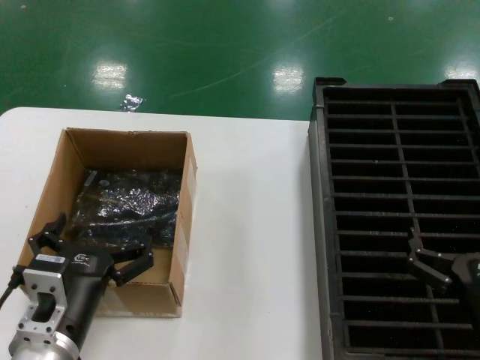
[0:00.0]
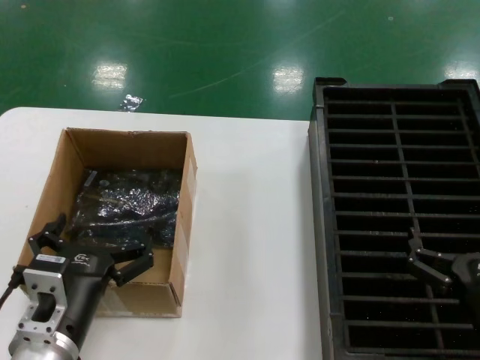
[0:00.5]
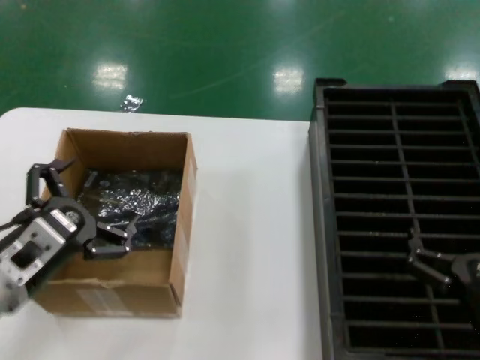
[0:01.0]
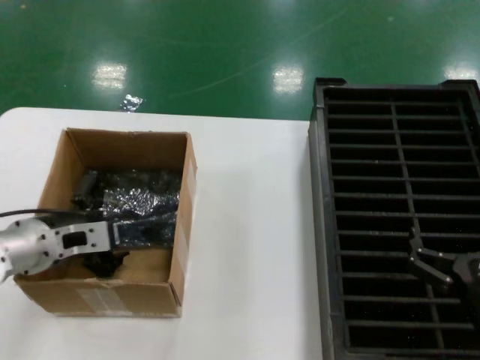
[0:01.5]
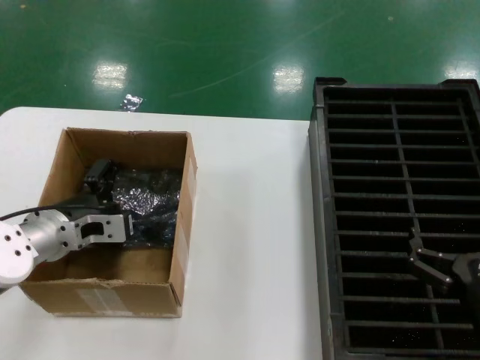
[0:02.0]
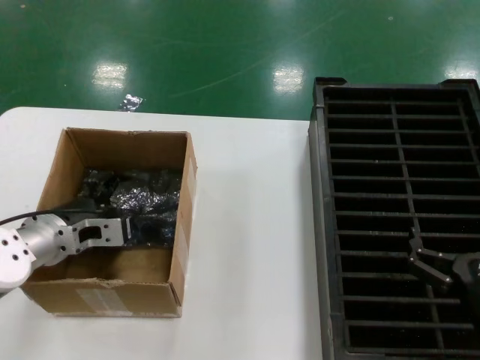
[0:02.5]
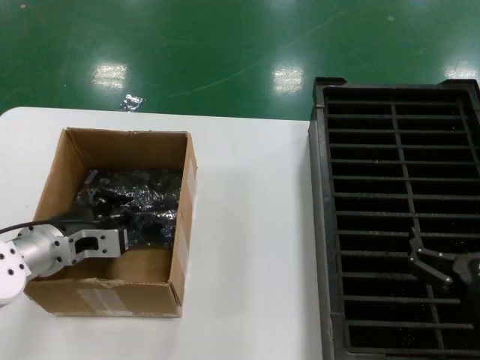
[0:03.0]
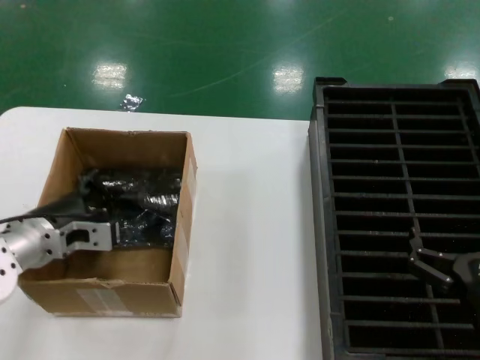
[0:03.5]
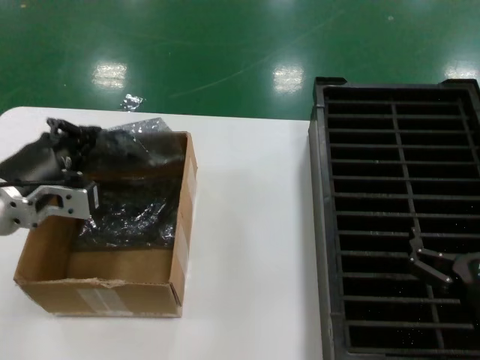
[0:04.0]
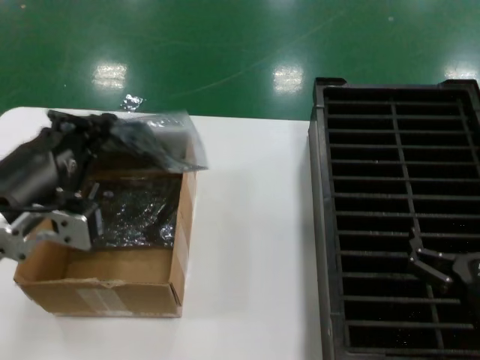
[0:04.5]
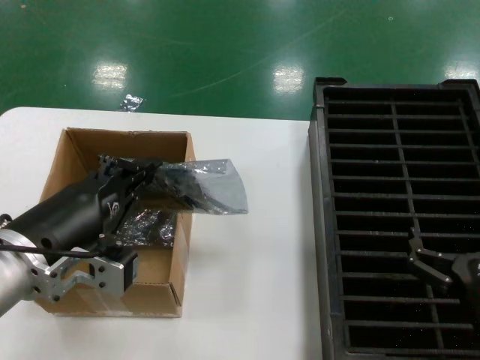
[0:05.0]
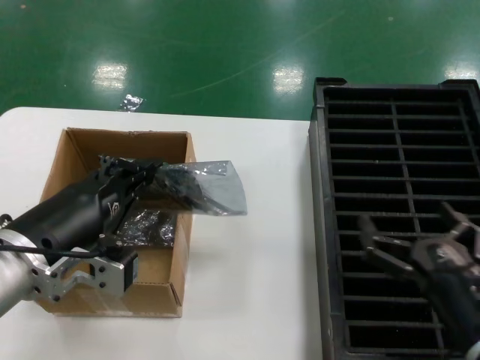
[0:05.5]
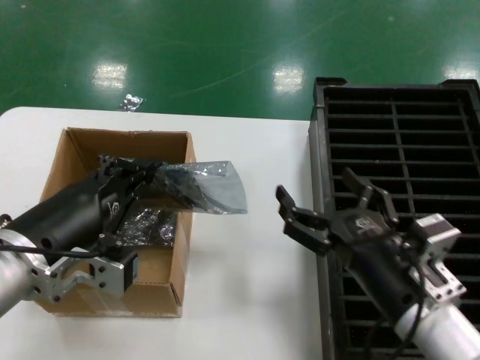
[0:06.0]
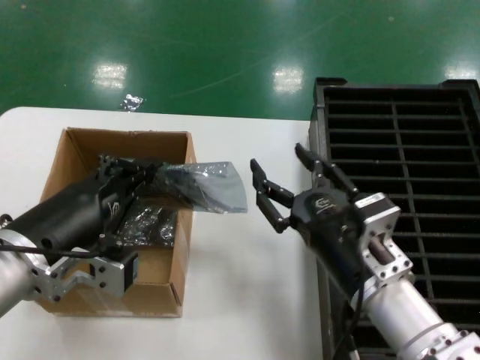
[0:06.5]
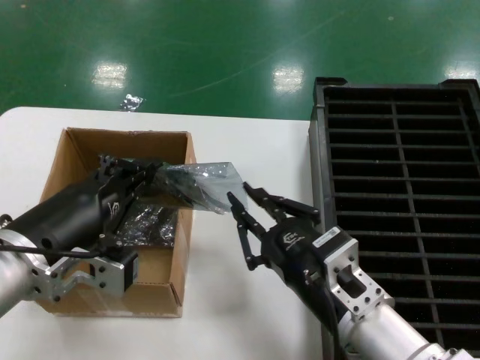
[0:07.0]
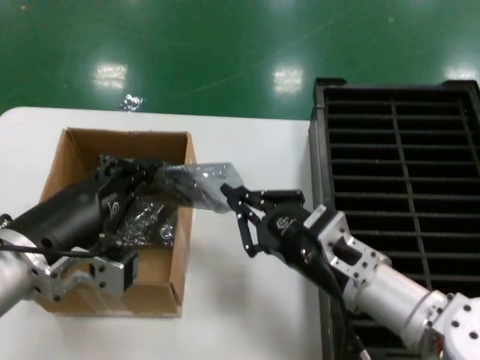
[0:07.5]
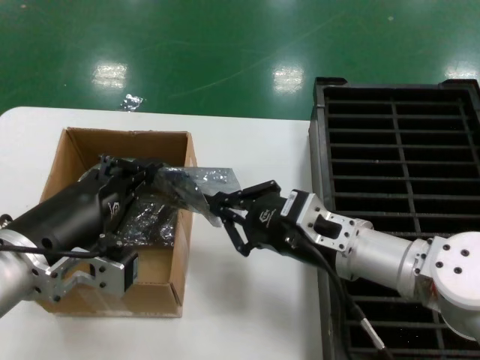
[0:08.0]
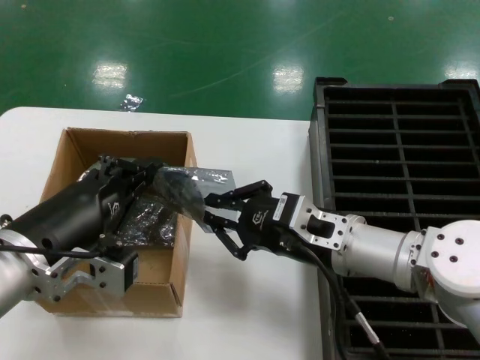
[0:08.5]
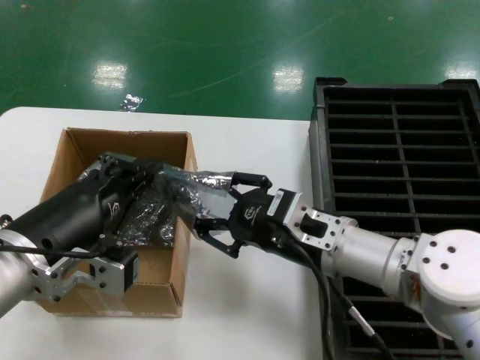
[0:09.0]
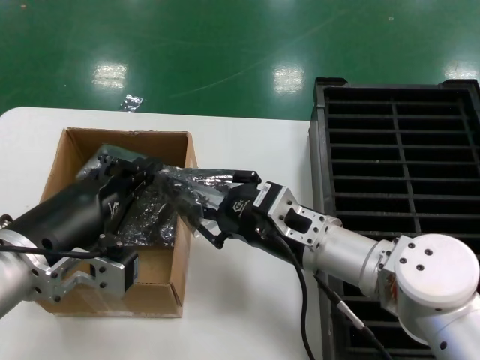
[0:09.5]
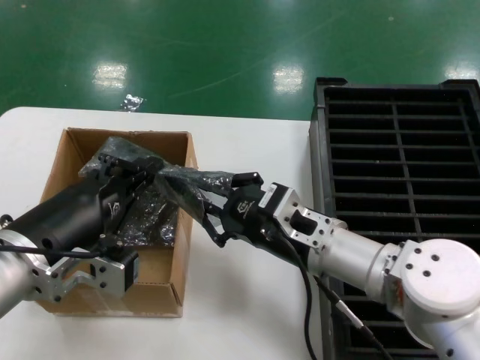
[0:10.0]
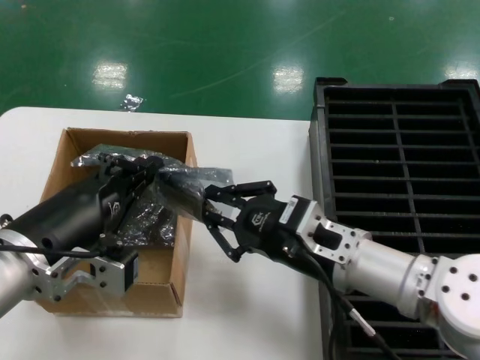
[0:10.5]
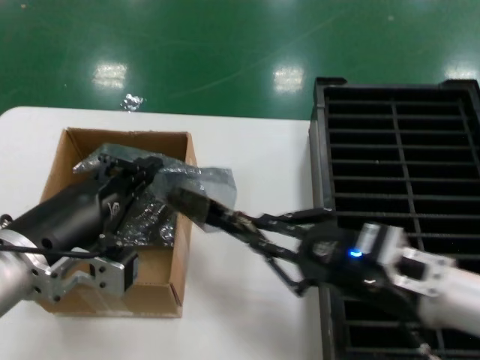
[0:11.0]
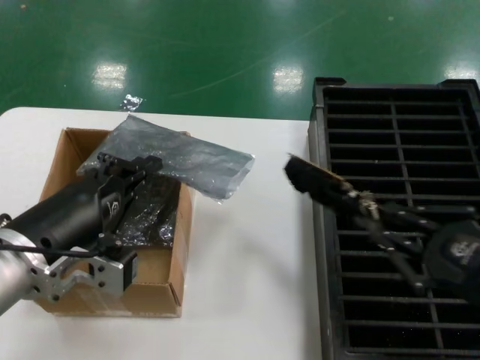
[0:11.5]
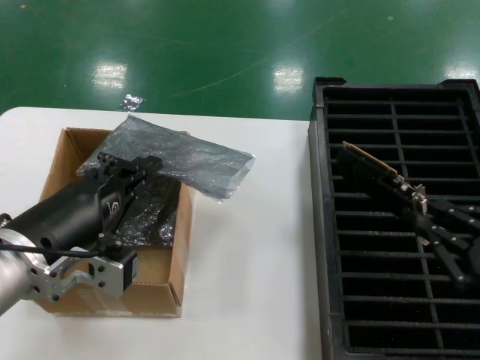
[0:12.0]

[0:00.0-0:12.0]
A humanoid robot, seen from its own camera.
Task of the whole recording: take out graphics card from box remove packaging put into black container.
Step, 0:00.0 to 0:03.0: Grasp the bag.
Step, 0:03.5 to 0:05.0: Lift the bag.
Step, 0:05.5 to 0:11.0: Take out the hard disk of the bag.
0:00.0 to 0:02.0: The left hand is displaced forward and to the left by approximately 20 cm.
0:02.0 to 0:04.0: The left hand moves upward and backward, some 10 cm.
0:04.0 to 0:06.0: The left hand travels backward and to the right by approximately 10 cm, while the right hand is displaced to the left by about 10 cm.
0:06.0 to 0:08.0: The right hand goes some 10 cm forward.
0:08.0 to 0:10.0: There are only small adjustments of the hands.
0:10.0 to 0:12.0: The right hand moves to the right and backward, roughly 30 cm.

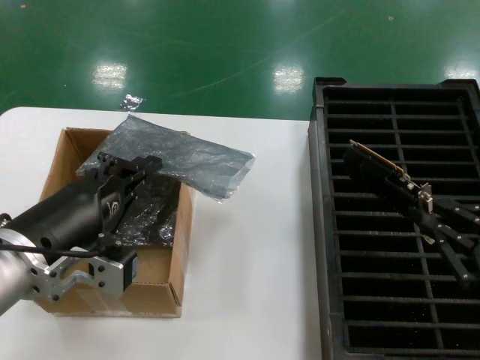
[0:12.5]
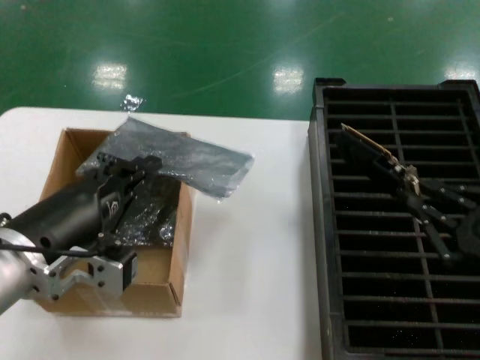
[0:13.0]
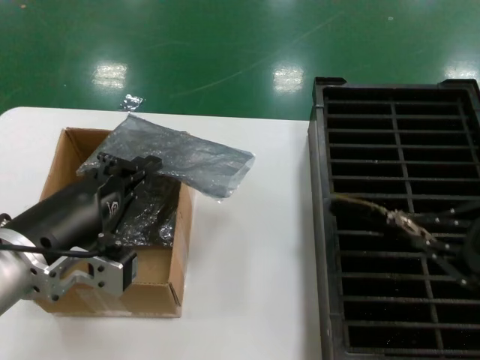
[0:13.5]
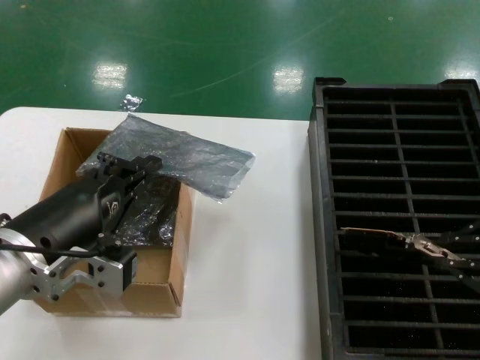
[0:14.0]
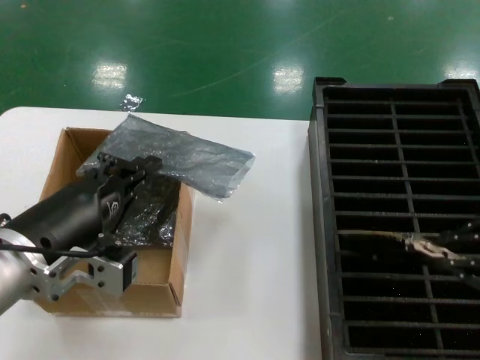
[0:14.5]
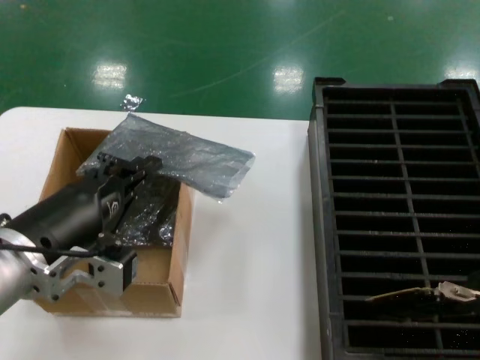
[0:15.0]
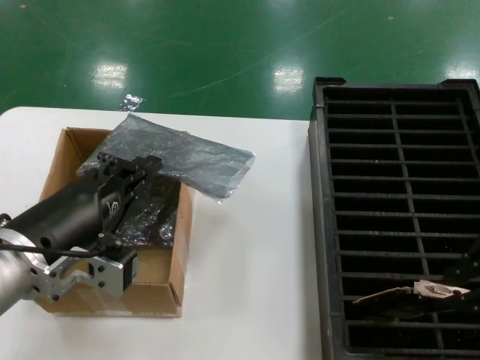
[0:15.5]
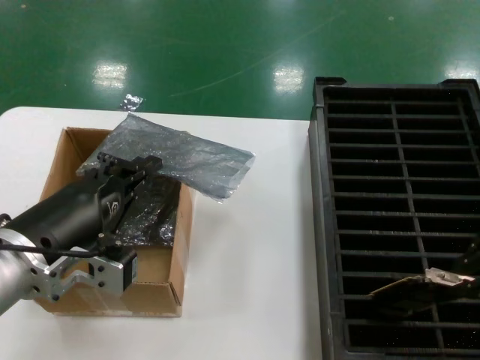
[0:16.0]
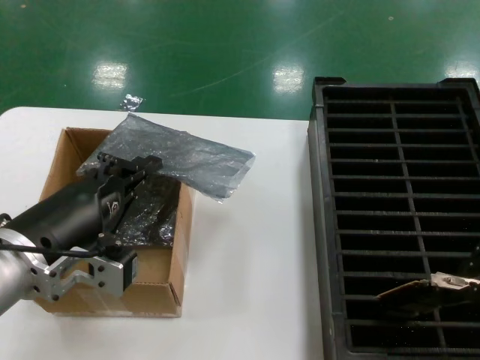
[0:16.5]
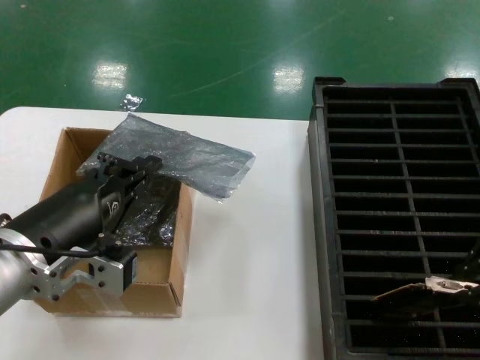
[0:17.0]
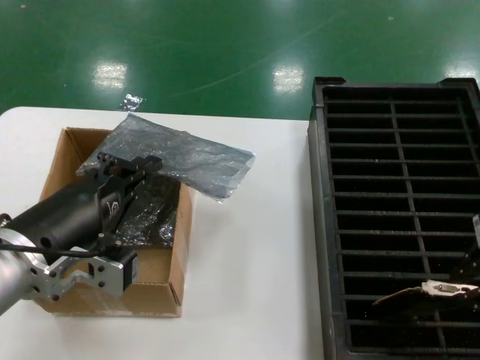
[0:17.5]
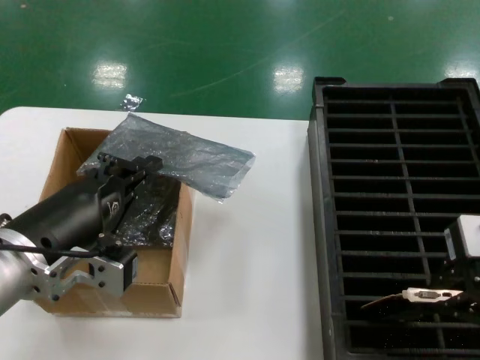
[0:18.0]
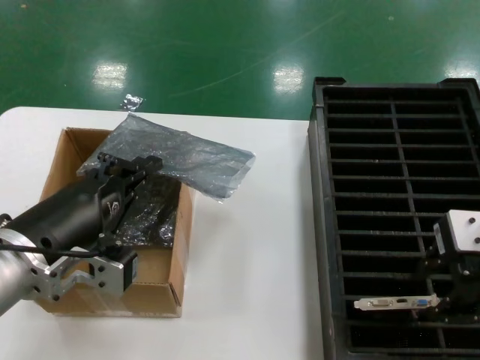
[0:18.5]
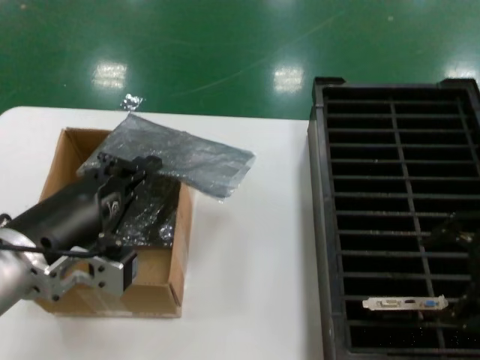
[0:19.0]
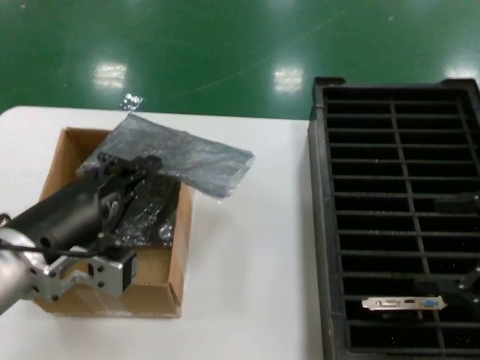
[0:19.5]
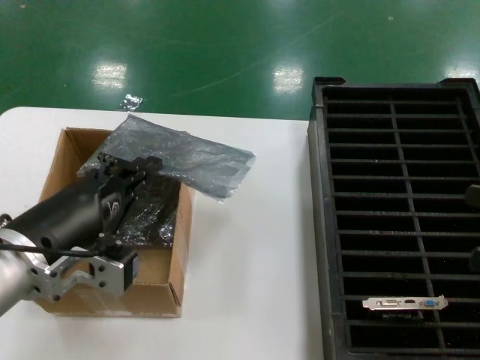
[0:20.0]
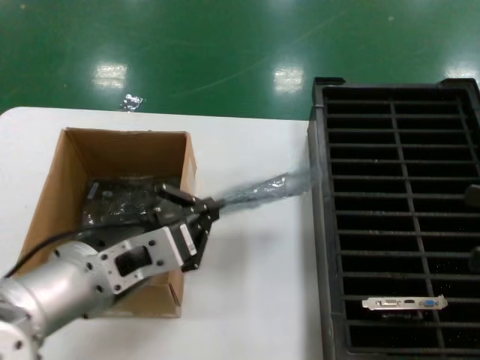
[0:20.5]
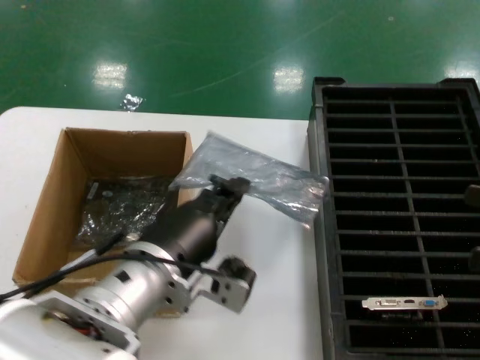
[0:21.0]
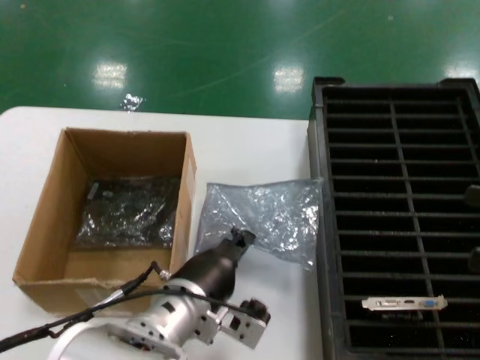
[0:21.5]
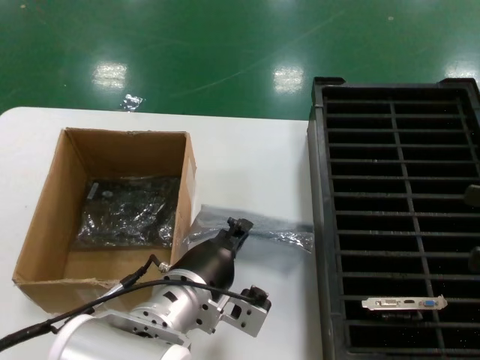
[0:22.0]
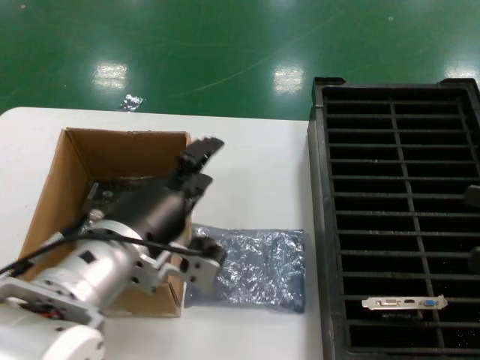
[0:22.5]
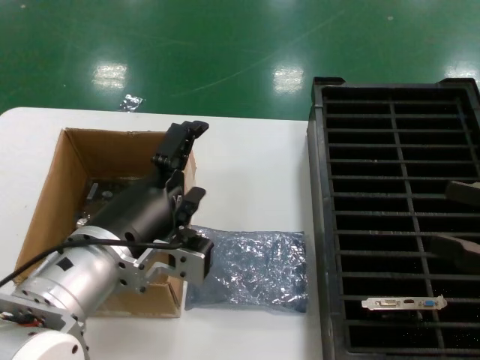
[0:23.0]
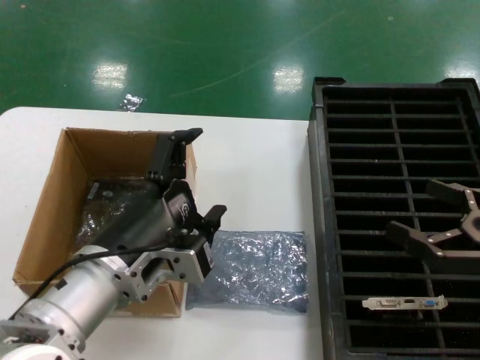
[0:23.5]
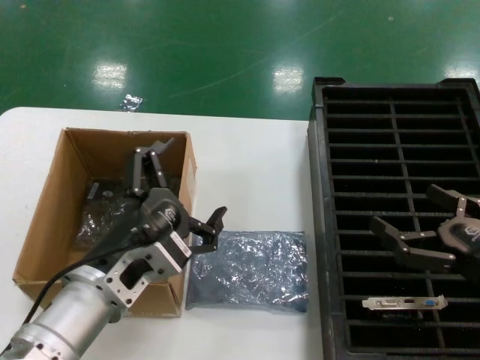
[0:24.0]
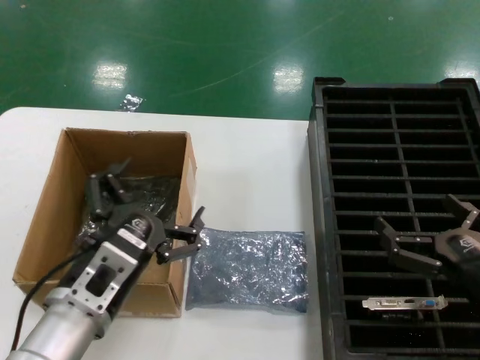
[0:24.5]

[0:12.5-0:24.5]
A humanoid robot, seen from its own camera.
Task of the whole recording: take out graphics card from box remove packaging put into black container.
Step, 0:12.5 to 0:18.5: Place the hard disk in the hard disk enclosure.
Step, 0:19.0 to 0:22.5: Place the down the bag.
0:12.5 to 0:14.5: The right hand moves upward, roughly 10 cm.
0:14.5 to 0:16.5: The right hand goes about 5 cm upward and to the left.
0:16.5 to 0:18.5: The right hand moves about 5 cm.
0:18.5 to 0:20.5: The right hand moves to the right, approximately 20 cm. The left hand heads to the right, covering approximately 5 cm.
0:20.5 to 0:22.5: The left hand moves approximately 10 cm downward and comes back.
0:22.5 to 0:24.5: The right hand travels downward and to the left by some 20 cm. The left hand moves downward and to the left, approximately 10 cm.

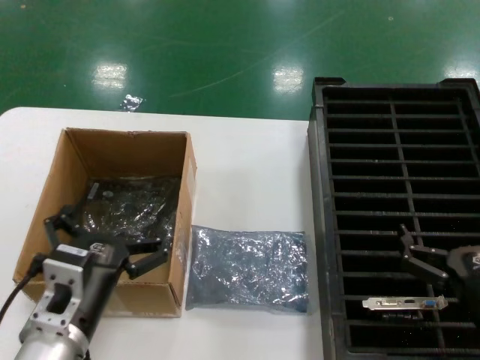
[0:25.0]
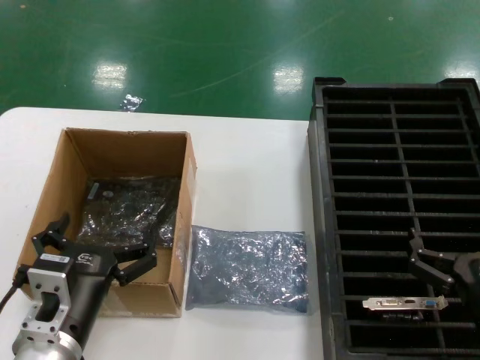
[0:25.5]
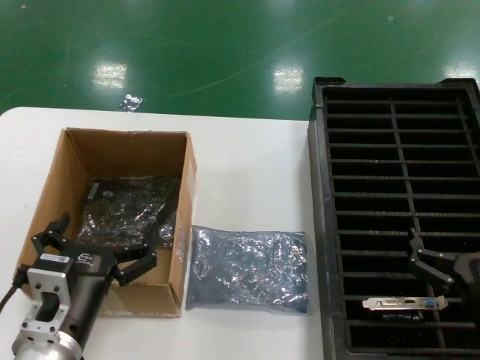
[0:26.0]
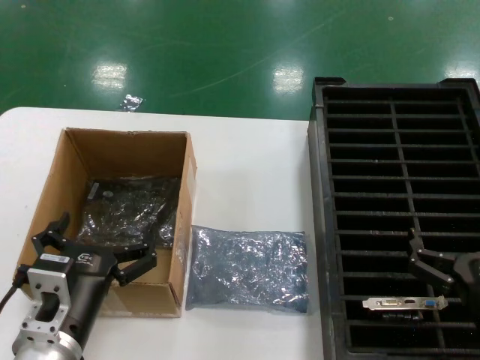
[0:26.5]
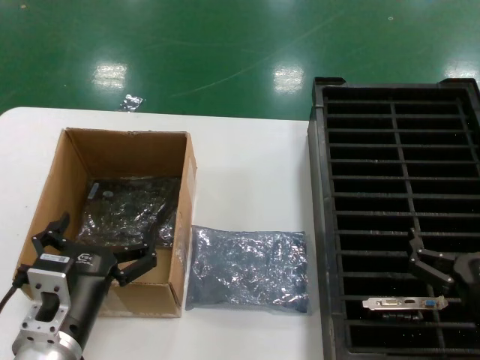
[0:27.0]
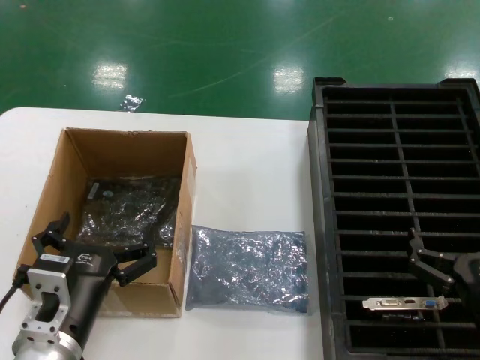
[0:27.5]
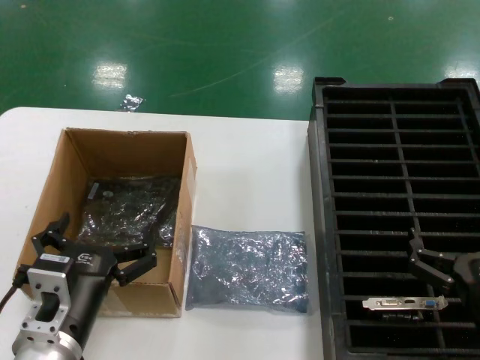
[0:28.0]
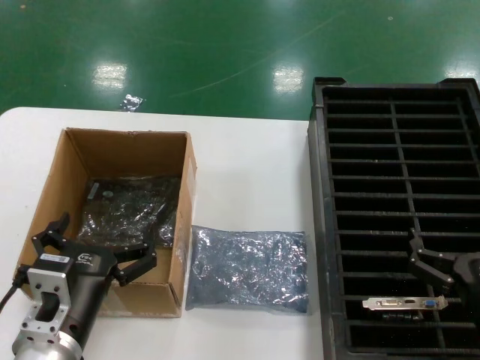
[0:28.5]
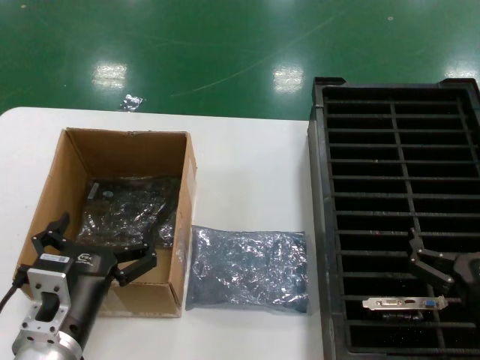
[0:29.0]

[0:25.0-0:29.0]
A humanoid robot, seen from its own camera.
Task of the whole recording: take out graphics card from box remove packaging put into black container.
0:25.0 to 0:27.0: The hands make only small movements.
0:27.0 to 0:29.0: Neither hand changes place.
